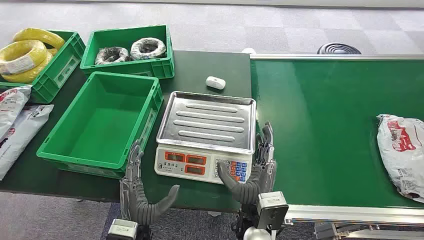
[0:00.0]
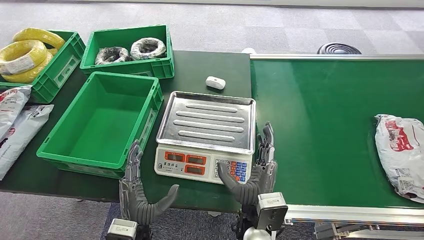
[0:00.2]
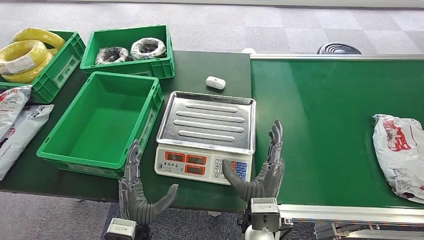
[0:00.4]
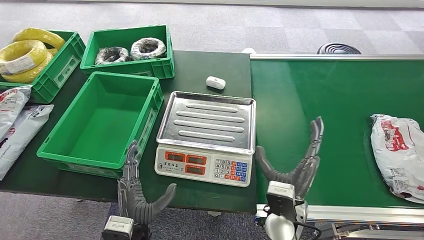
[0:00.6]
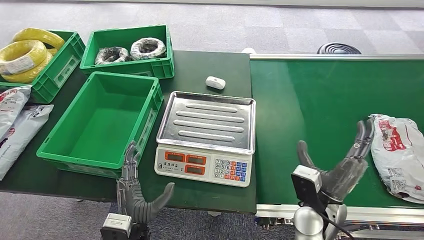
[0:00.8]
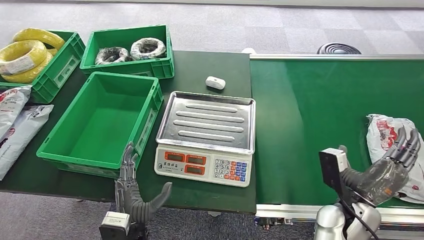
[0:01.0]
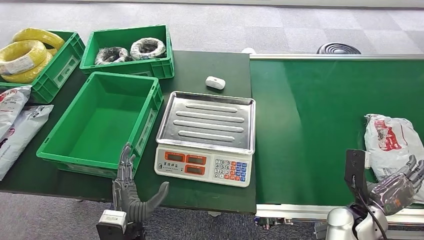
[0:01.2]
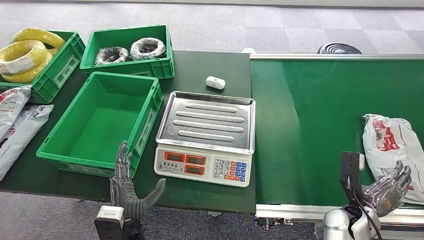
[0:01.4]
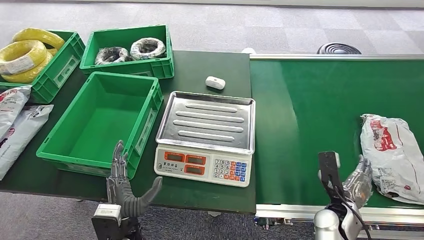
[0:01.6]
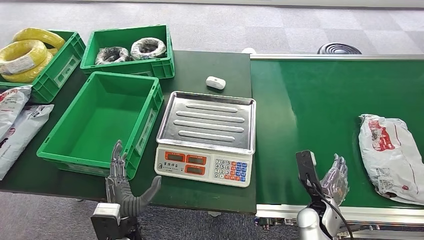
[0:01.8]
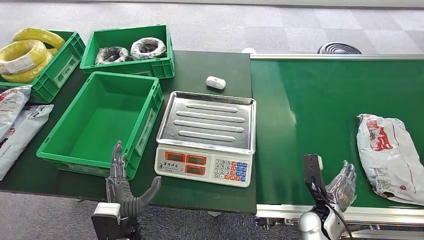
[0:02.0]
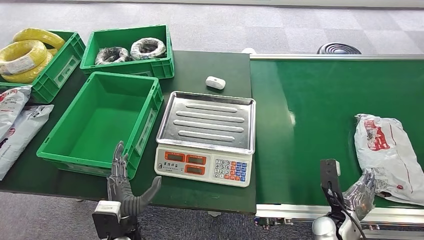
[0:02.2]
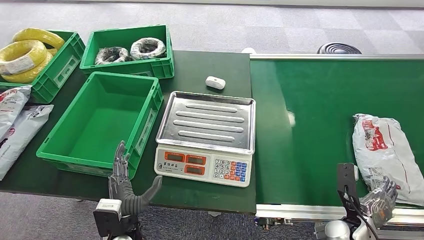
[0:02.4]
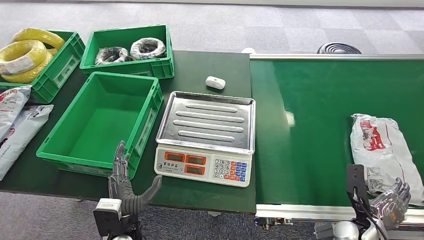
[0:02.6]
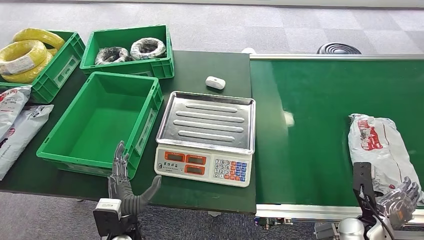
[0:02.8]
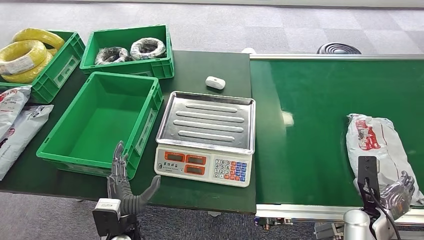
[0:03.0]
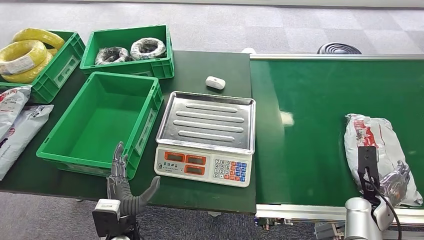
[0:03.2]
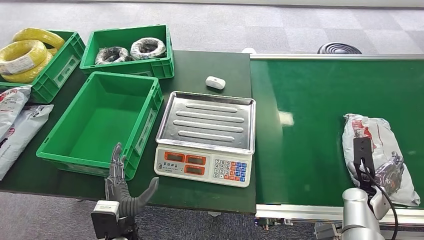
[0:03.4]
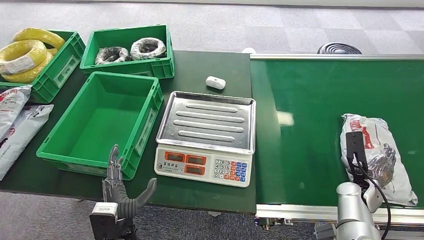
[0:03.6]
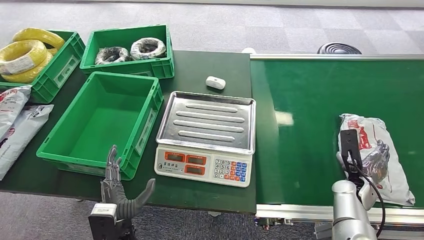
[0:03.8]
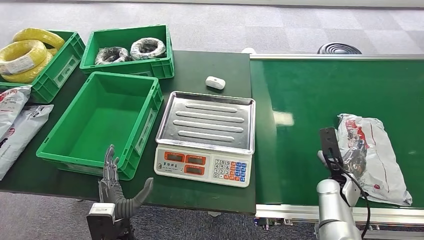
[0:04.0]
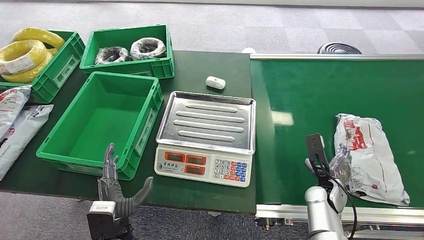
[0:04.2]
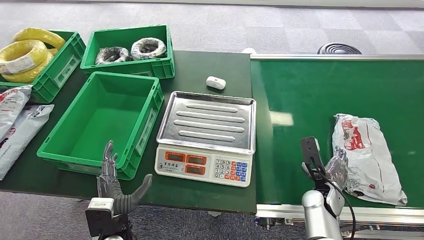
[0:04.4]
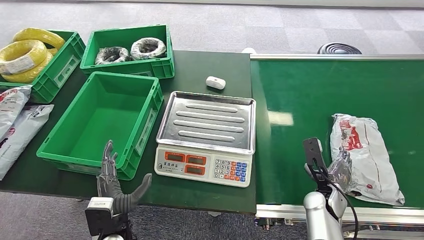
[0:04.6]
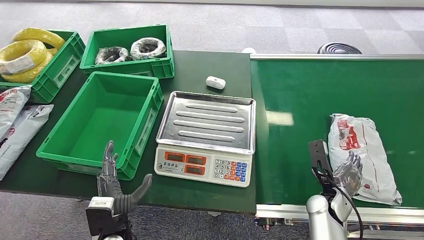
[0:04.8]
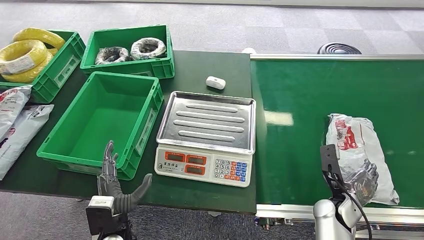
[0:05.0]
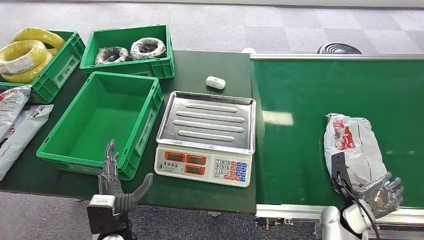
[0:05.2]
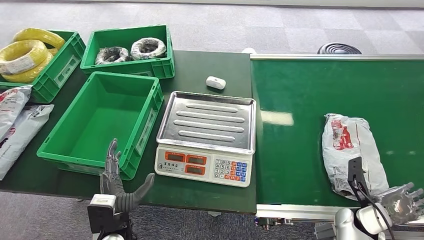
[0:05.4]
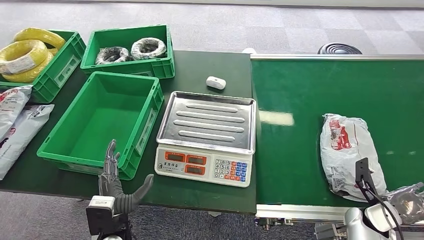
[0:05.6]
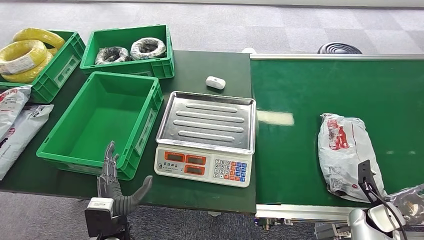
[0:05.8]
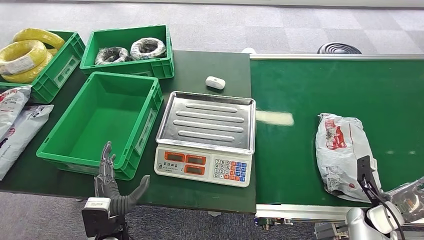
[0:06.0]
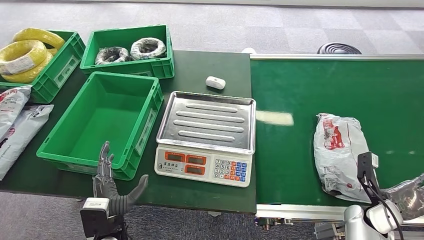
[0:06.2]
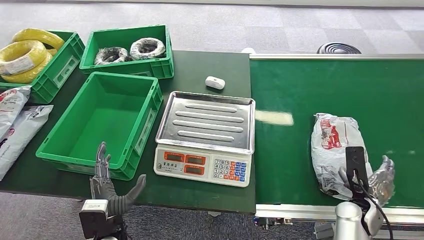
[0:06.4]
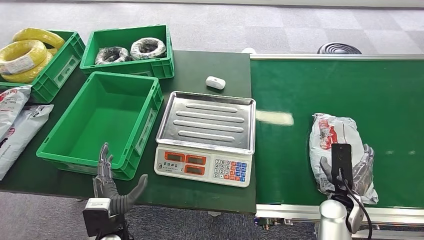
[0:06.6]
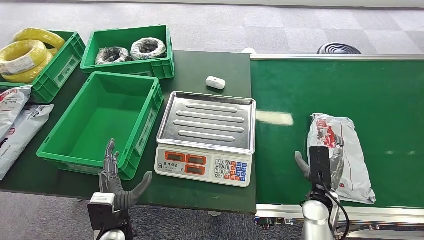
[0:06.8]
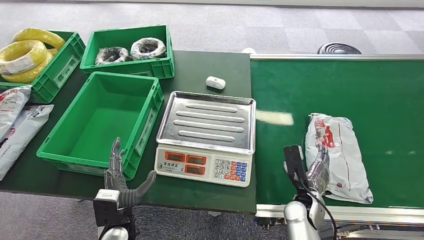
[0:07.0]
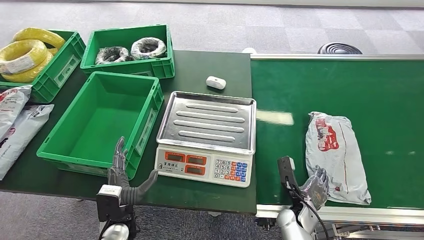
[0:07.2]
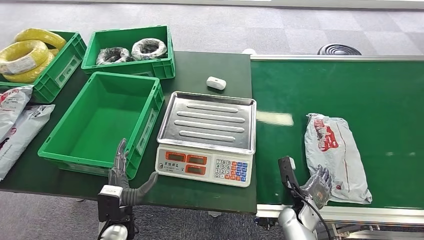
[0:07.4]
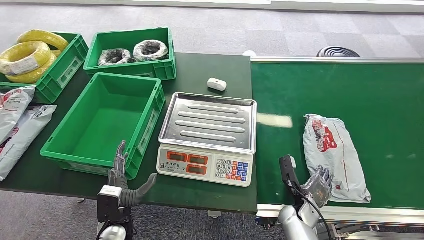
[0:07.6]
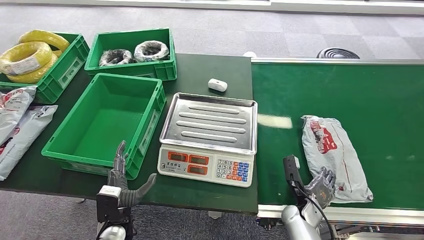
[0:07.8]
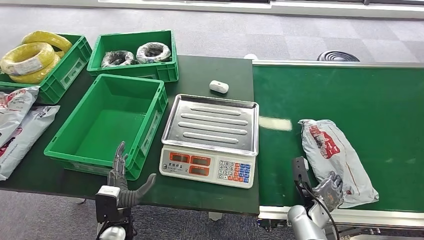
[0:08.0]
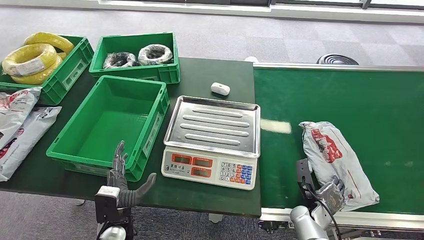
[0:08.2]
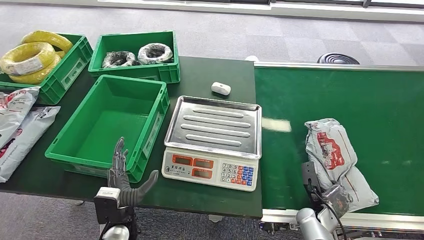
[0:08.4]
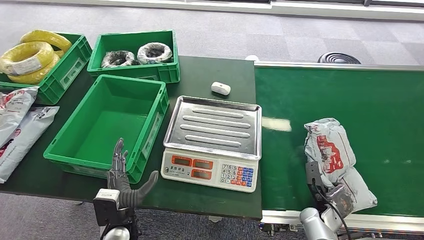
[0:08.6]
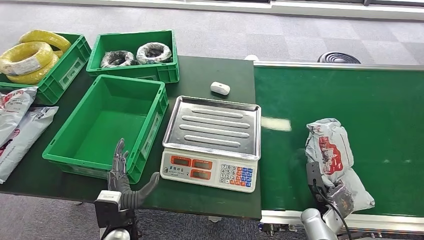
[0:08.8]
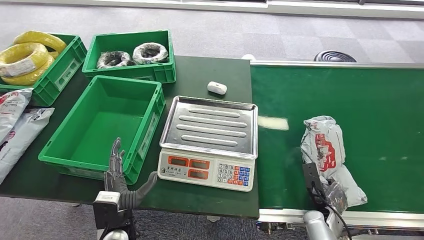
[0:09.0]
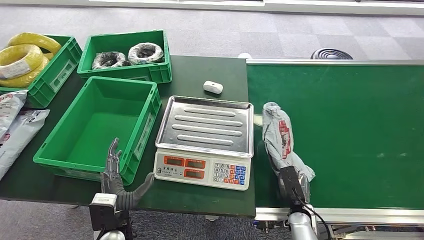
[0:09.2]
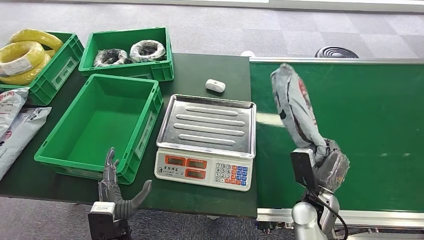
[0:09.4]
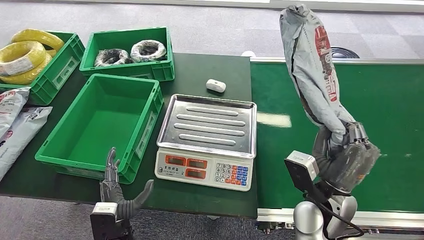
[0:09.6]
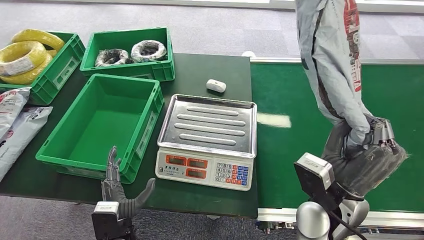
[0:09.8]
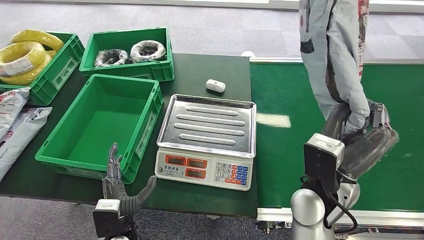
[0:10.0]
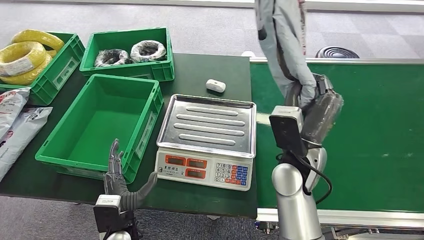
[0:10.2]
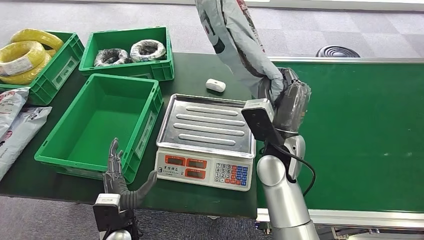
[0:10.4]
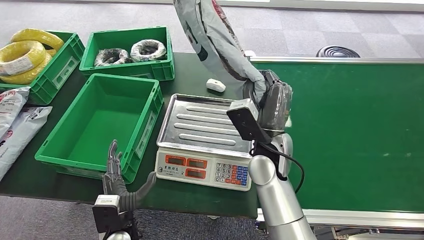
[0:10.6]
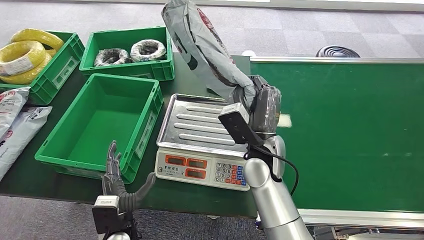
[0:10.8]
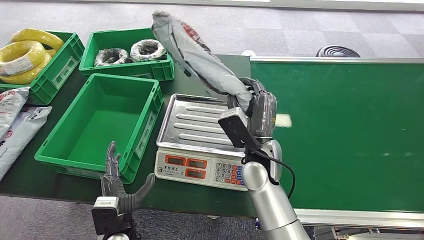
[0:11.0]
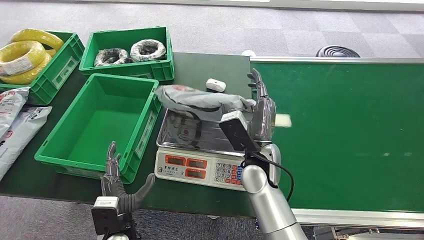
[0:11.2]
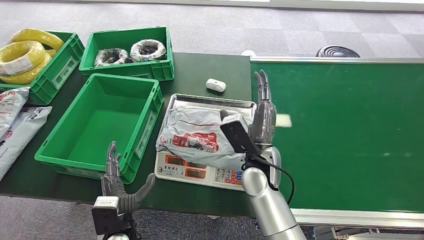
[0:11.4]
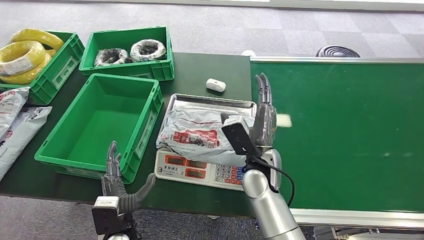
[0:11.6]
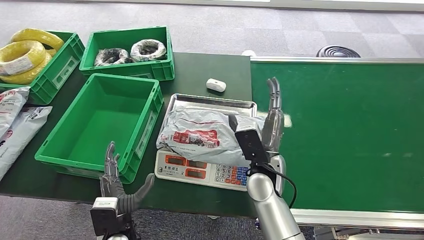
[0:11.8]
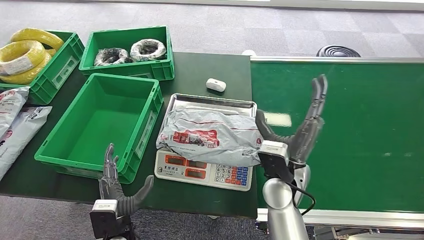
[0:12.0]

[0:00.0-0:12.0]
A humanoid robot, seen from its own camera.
Step, 0:00.0 to 0:09.4: Pick up the package from the conveyor belt.
Step, 0:09.8 to 0:11.6: Place the package onto the inbound machine.
0:01.6 to 0:03.0: The right hand moves to the right, approximately 10 cm.
0:03.0 to 0:04.4: The right hand moves to the left and forward, roughly 10 cm.
0:04.4 to 0:06.0: The right hand shifts some 15 cm to the right.
0:10.4 to 0:12.0: The right hand shifts by roughly 5 cm.

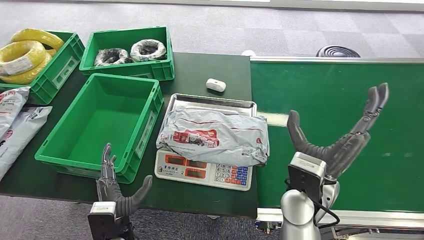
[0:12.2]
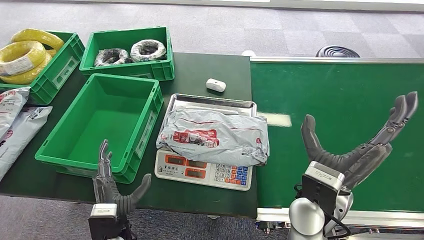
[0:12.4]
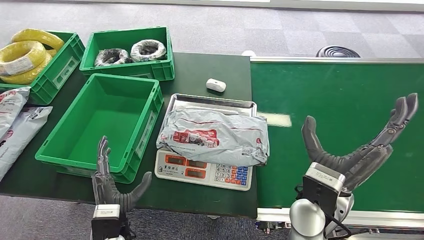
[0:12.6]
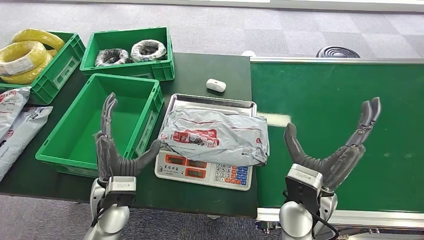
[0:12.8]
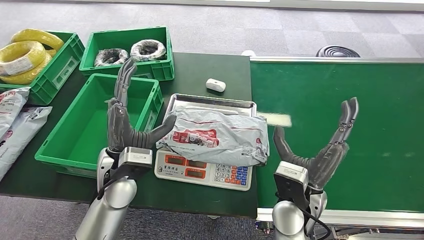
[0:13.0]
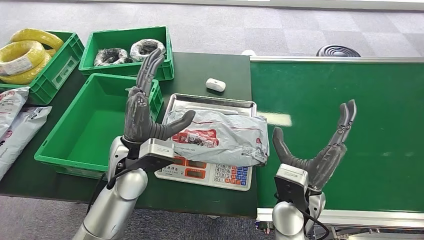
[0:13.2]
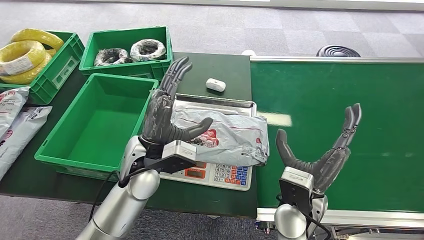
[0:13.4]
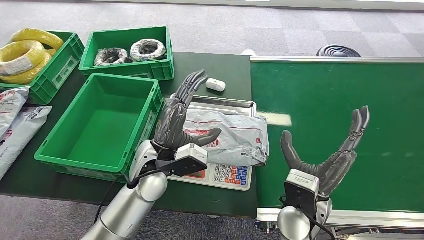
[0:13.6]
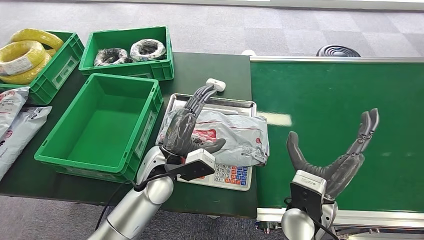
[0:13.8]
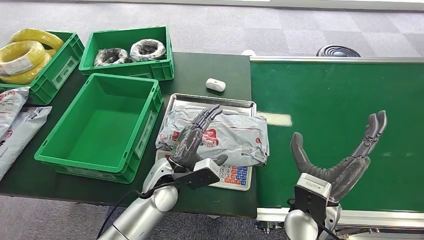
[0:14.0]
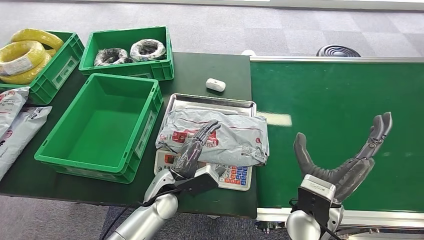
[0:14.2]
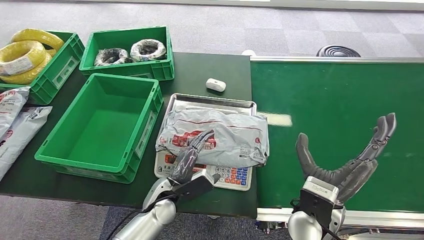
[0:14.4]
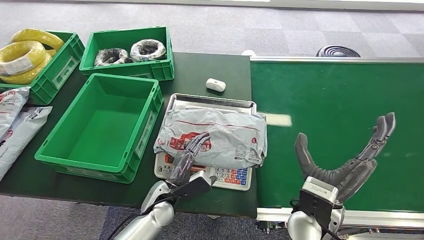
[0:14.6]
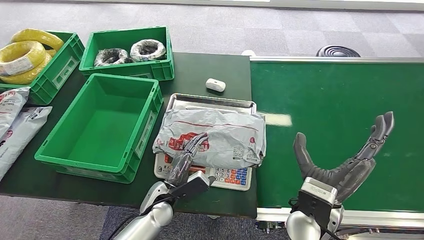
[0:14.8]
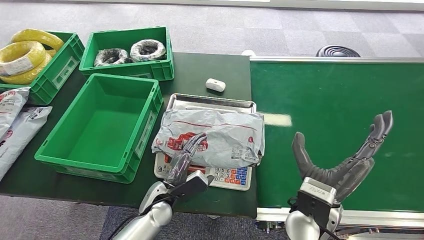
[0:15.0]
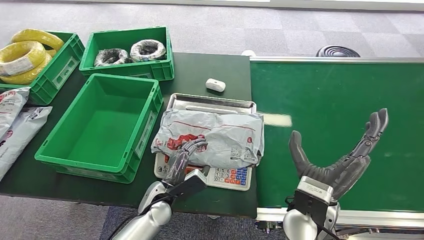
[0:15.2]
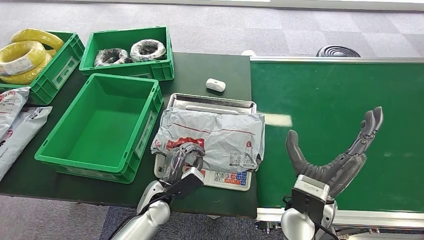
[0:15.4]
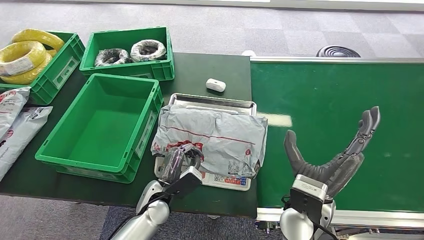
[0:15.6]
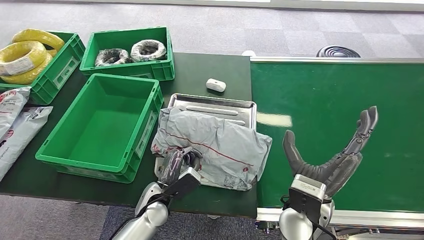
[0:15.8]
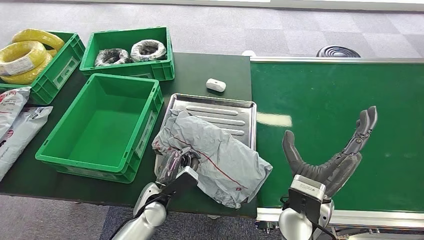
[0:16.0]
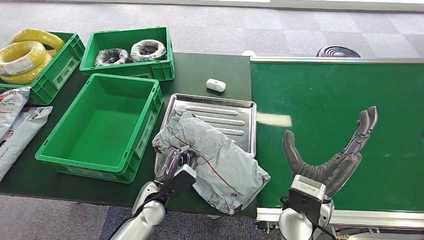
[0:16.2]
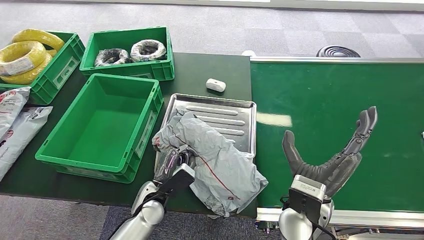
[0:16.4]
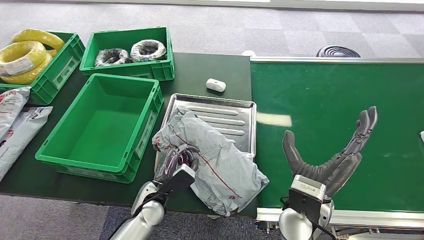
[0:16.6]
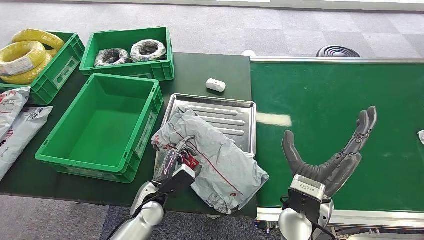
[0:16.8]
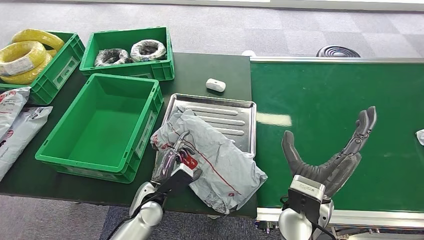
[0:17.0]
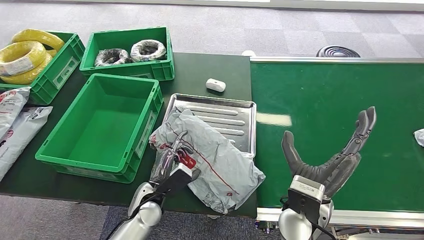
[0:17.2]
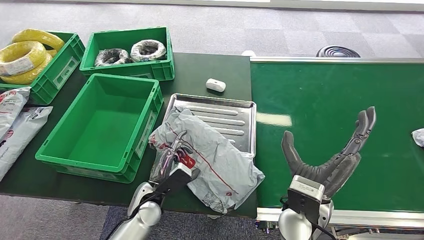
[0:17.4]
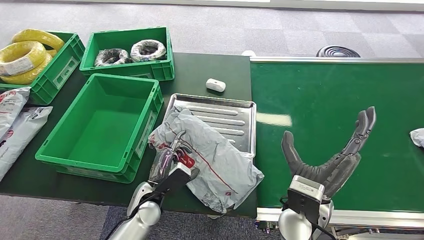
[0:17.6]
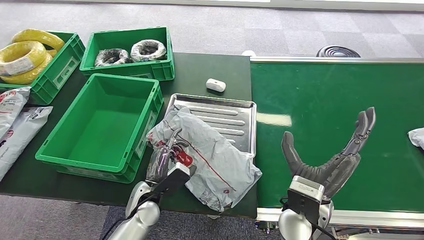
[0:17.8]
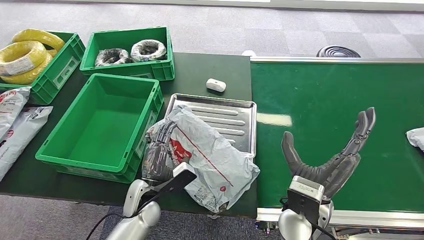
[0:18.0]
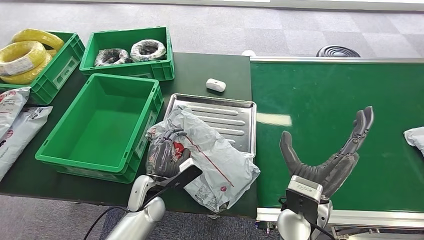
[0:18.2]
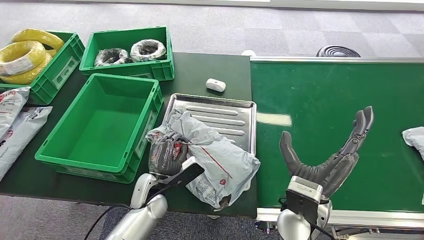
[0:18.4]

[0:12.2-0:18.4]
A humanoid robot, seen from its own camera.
0:12.2 to 0:13.8: The left hand travels upward, forward and to the right by some 20 cm.
0:13.8 to 0:15.4: The left hand travels downward by approximately 15 cm.
0:15.4 to 0:16.8: The hands stay close to where they were, moving slightly.
